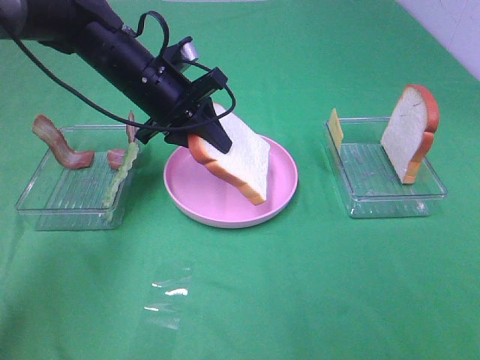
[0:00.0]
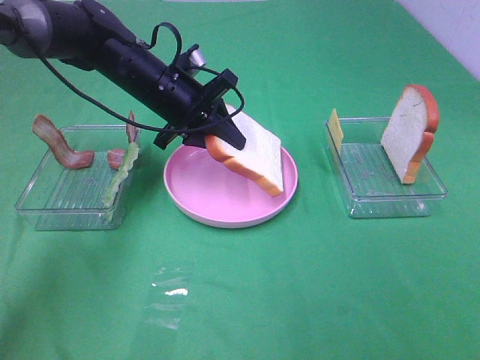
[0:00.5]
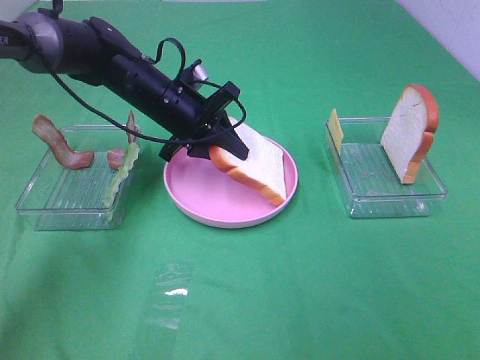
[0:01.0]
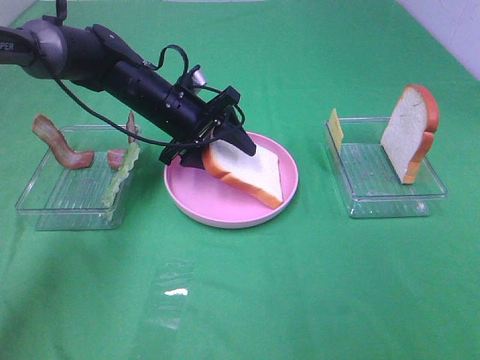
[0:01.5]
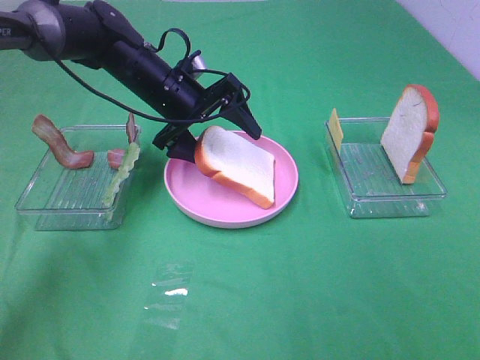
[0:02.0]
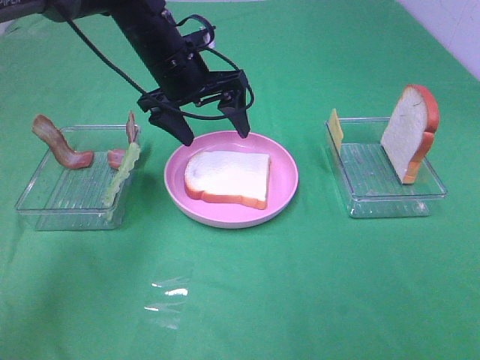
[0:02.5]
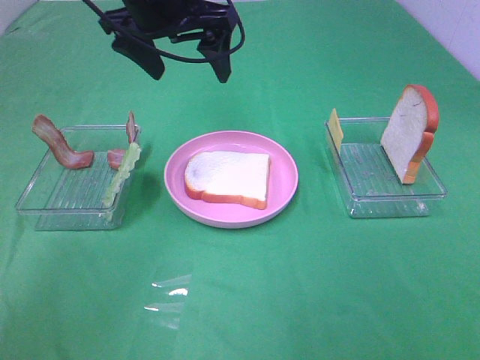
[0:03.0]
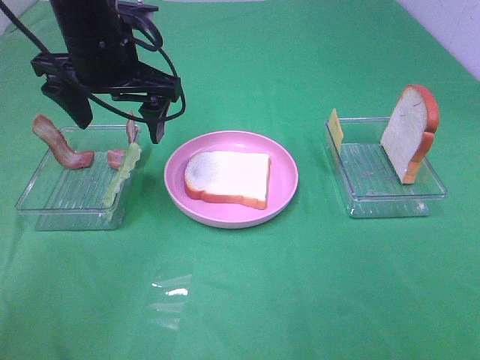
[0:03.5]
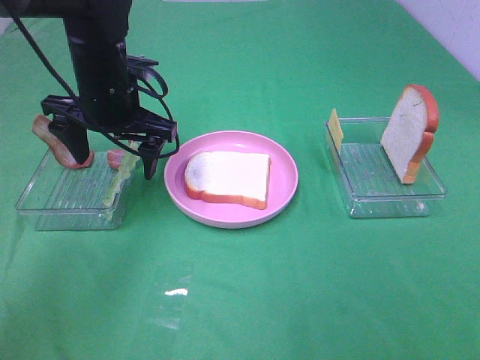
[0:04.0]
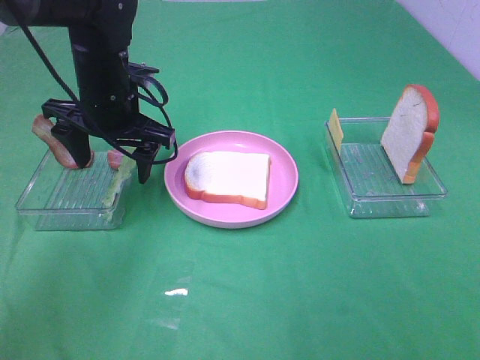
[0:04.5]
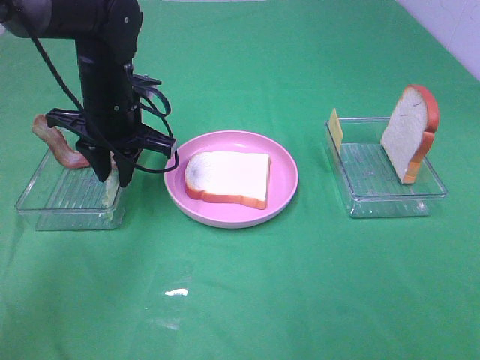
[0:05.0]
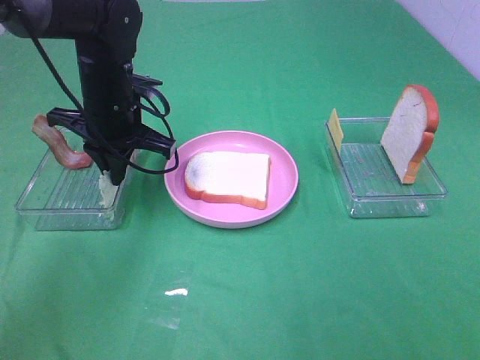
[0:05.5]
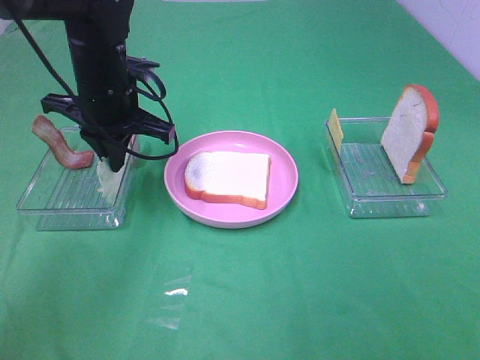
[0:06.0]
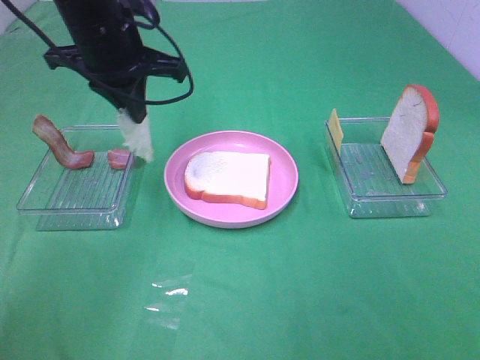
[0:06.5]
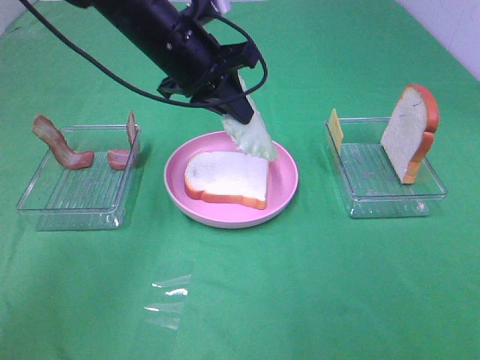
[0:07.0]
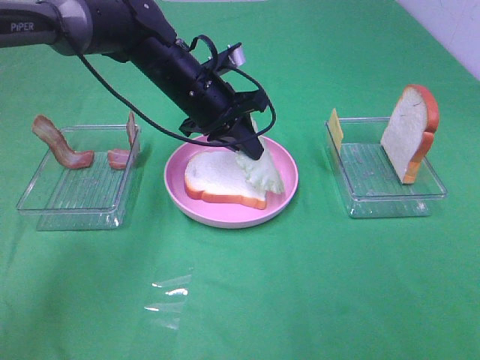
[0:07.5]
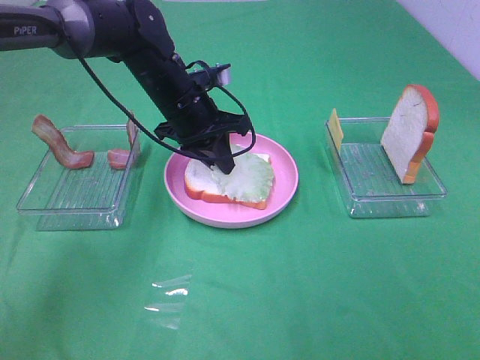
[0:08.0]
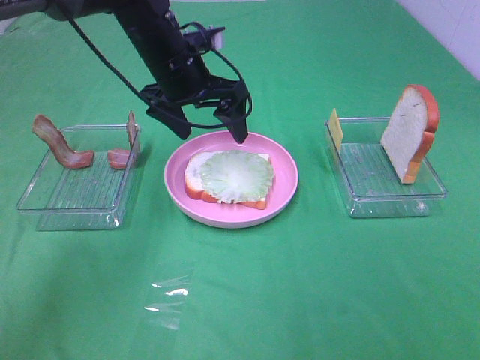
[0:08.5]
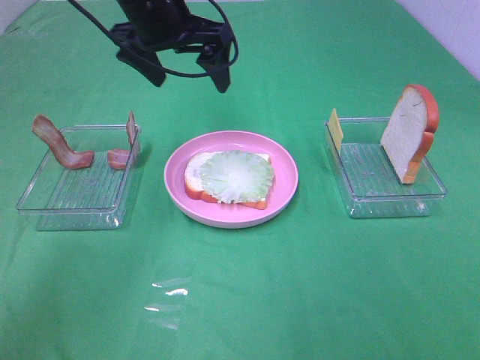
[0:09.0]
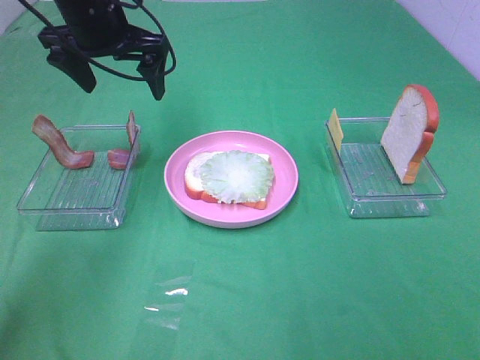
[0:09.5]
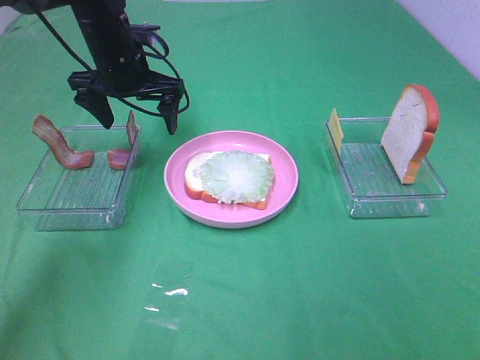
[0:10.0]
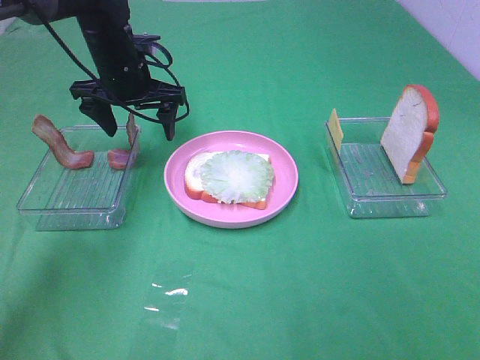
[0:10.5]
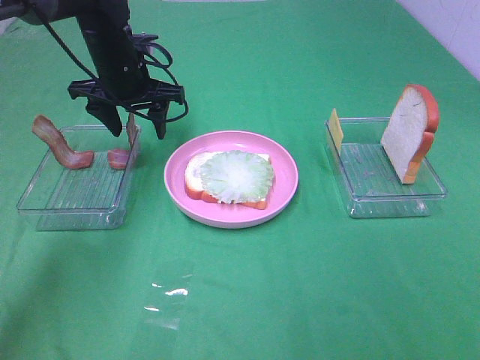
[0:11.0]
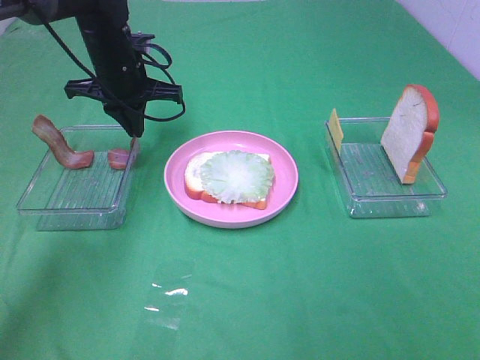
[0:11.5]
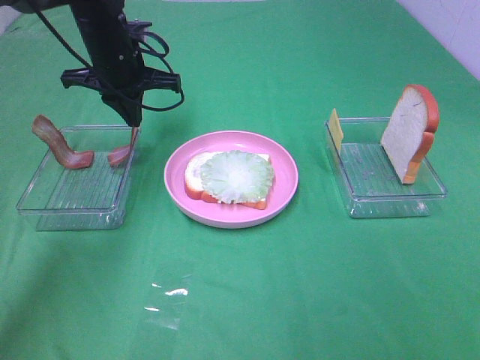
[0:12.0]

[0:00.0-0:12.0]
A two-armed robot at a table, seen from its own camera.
Task of the whole recording: Make sandwiches.
Step, 0:00.0 to 0:02.0: Left hand:place the bread slice on the plate.
Step, 0:02.5 to 0:05.5: Left hand:grab the lettuce slice.
Step, 0:06.0 to 0:08.0: Left hand:place the lettuce slice on the bread slice.
Step, 0:08.5 to 0:11.5: Left hand:grab the bacon.
0:00.0 to 0:02.0: The left gripper opens up.
0:02.0 to 0:04.0: The left gripper is displaced backward by about 5 cm, and moves some 15 cm upward and comes back.
0:04.0 to 0:06.0: The left gripper closes up.
0:06.0 to 0:08.0: The left gripper heads to the right, covering about 5 cm.
0:08.0 to 0:10.0: The left gripper is displaced to the left by some 10 cm, goes upward and returns, about 15 cm each way, and opens up.
0:10.0 to 0:12.0: The left gripper closes.

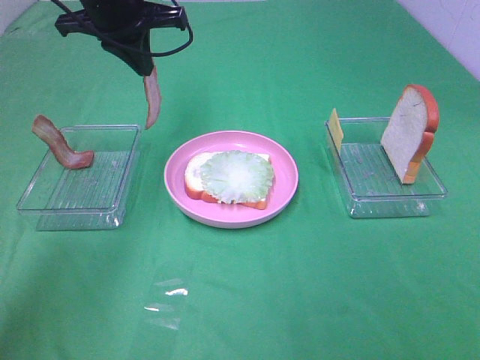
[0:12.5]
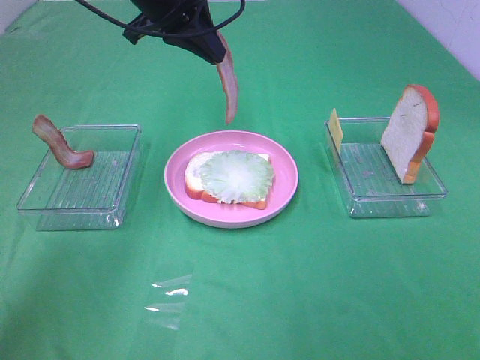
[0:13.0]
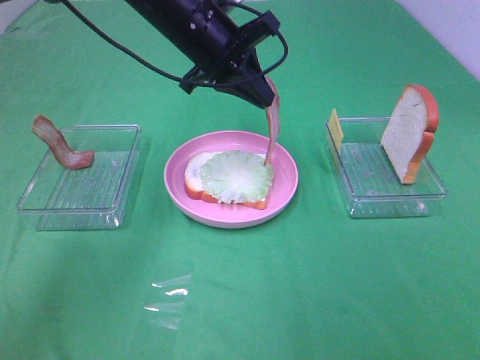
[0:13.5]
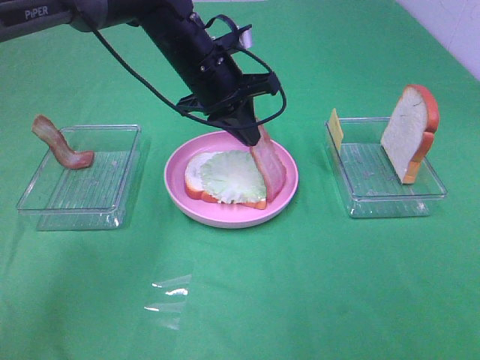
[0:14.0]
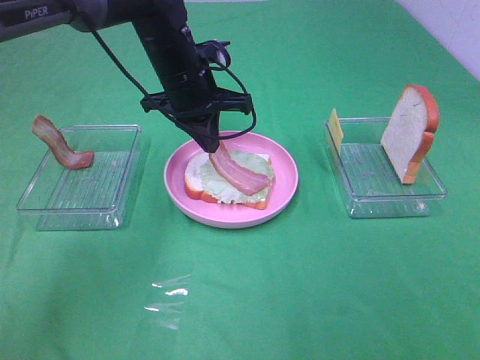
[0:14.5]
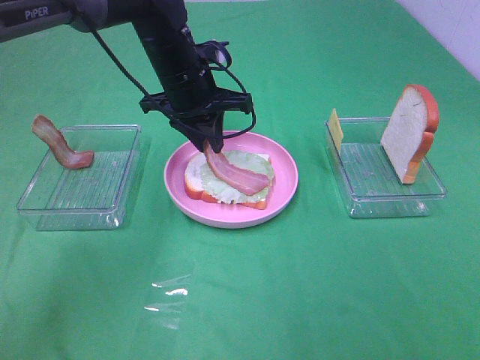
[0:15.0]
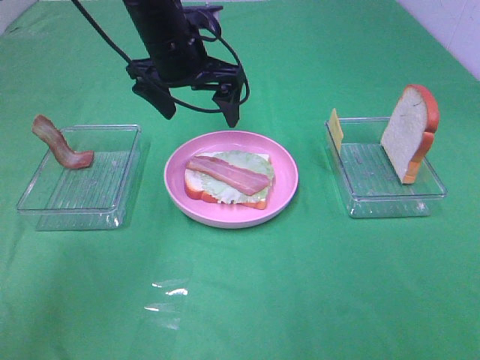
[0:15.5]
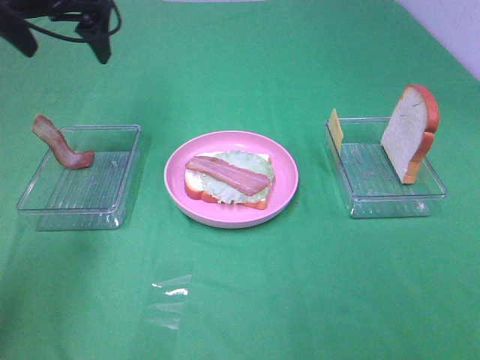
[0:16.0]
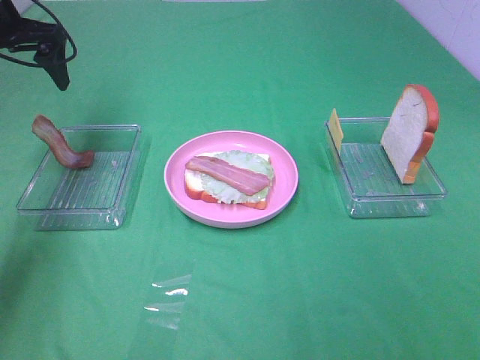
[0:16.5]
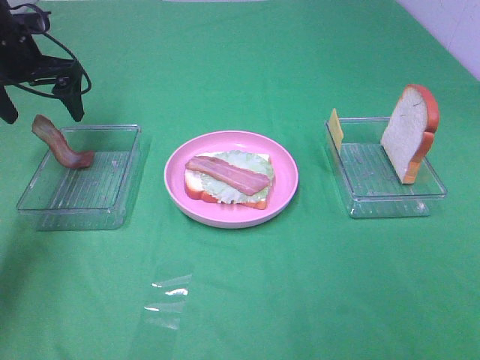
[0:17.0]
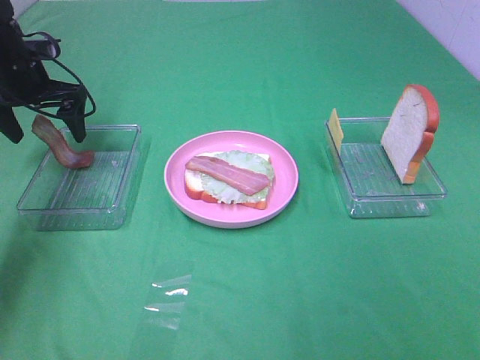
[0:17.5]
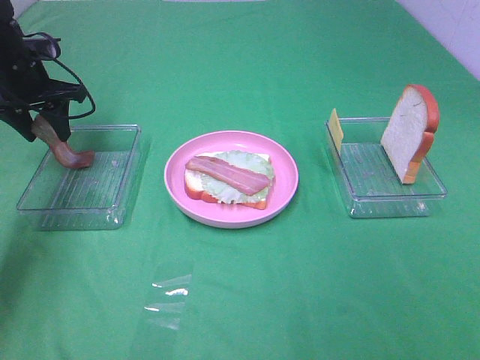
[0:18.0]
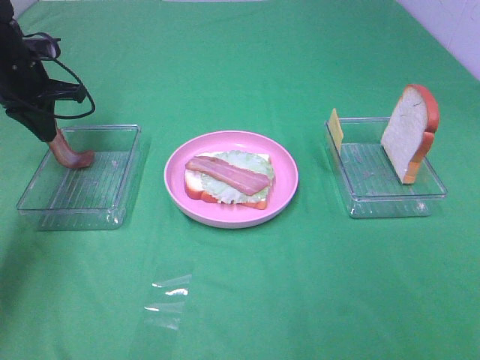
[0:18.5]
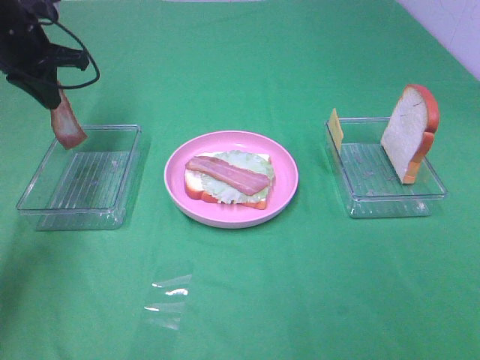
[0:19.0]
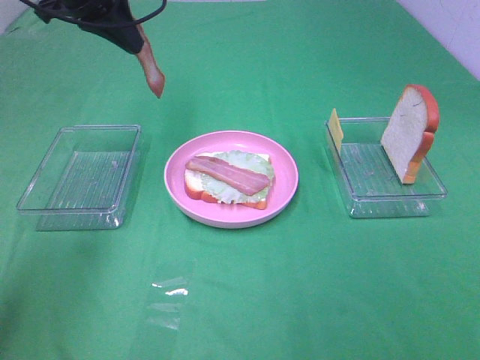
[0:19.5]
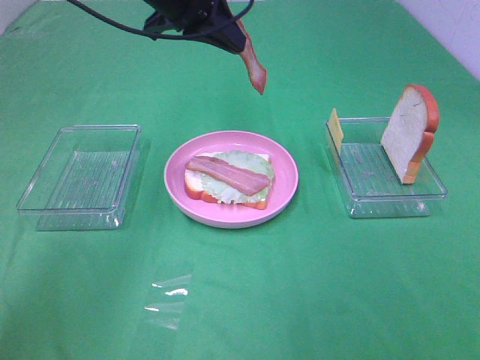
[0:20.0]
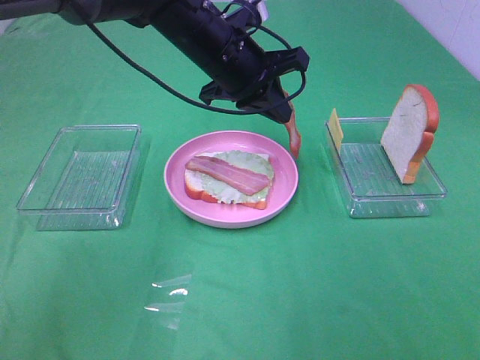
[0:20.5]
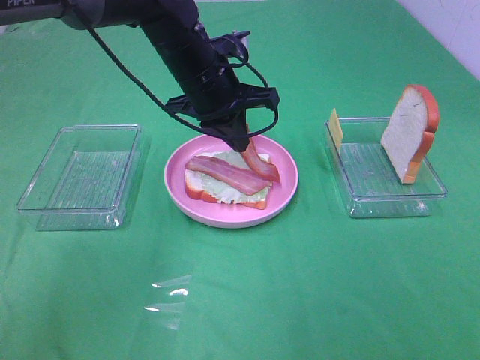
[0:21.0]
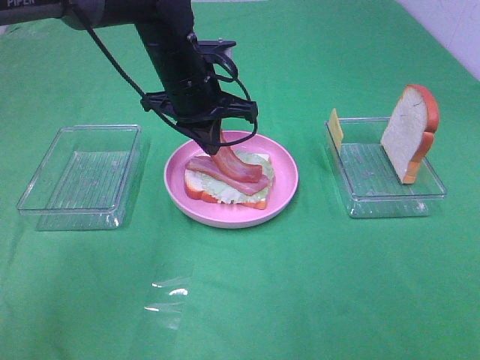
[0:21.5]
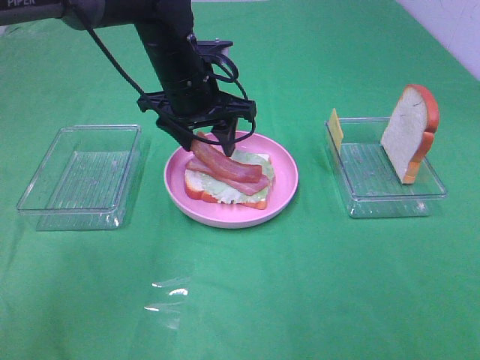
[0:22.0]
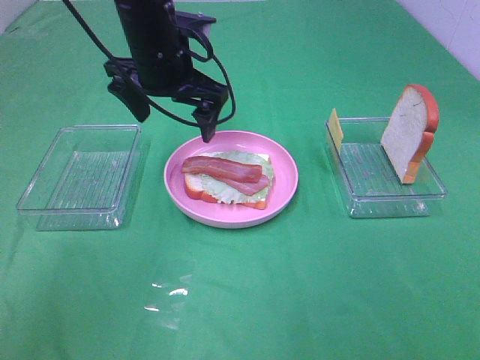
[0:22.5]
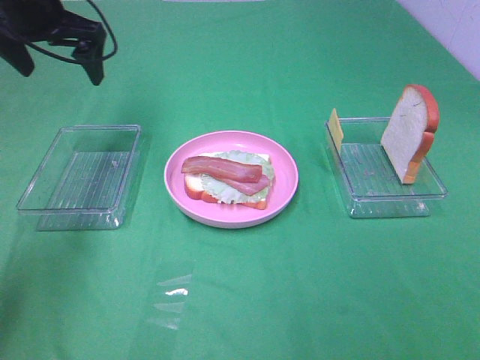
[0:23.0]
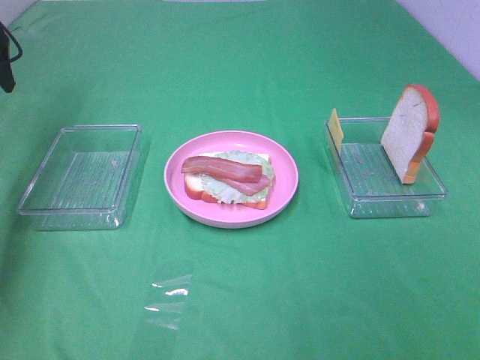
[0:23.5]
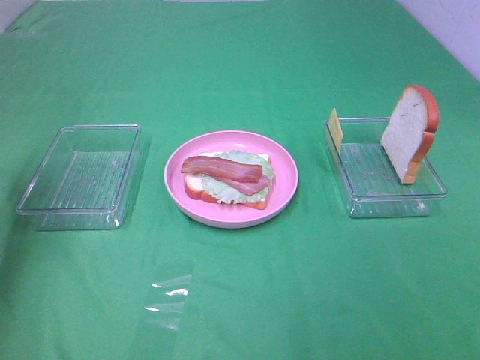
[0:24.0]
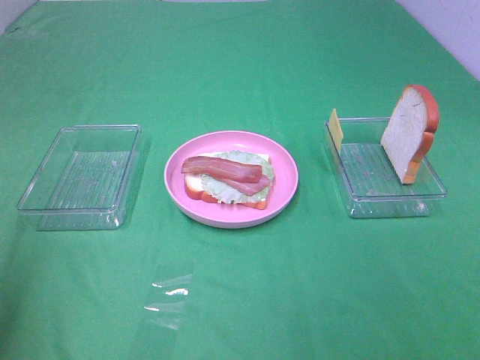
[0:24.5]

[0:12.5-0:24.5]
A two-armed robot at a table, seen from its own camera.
Task of the whole recording: Make sandwiches.
Step, 0:12.5 to 0:15.0: Left hand:place bacon on lettuce slice.
Step, 0:15.5 to 0:18.5: Left hand:grab the bacon.
Step, 0:19.0 to 0:22.0: Left hand:place bacon on bacon.
0:12.5 to 0:14.5: The left gripper shifts some 10 cm downward and to the right.
0:14.5 to 0:16.5: The left gripper moves to the left, approximately 25 cm, and opens its fingers.
0:16.5 to 0:18.5: The left gripper shifts some 10 cm downward, and closes up.
0:18.5 to 0:20.5: The left gripper travels to the right by about 30 cm.
0:20.5 to 0:22.5: The left gripper travels to the left by about 5 cm, and opens.
0:22.5 to 0:24.5: The left gripper heads backward and to the left, covering about 35 cm.

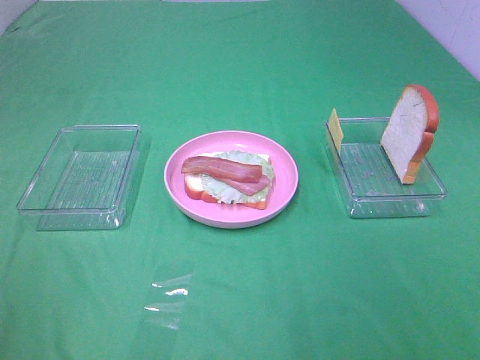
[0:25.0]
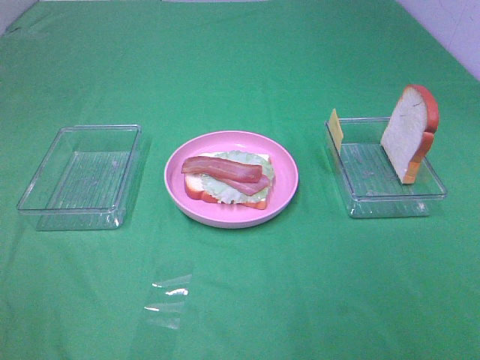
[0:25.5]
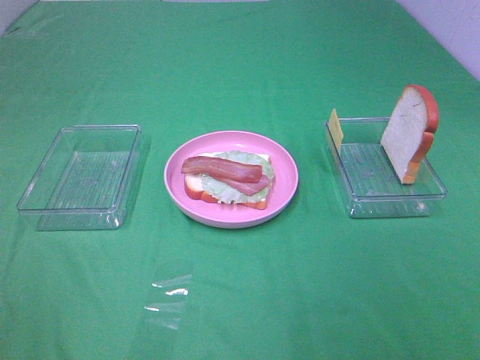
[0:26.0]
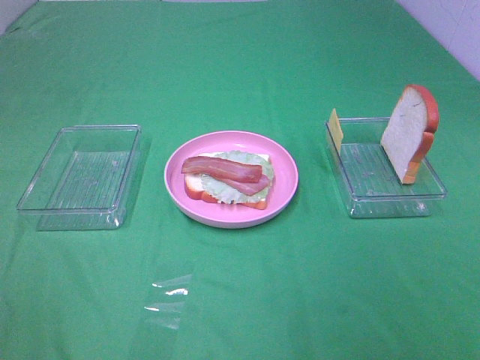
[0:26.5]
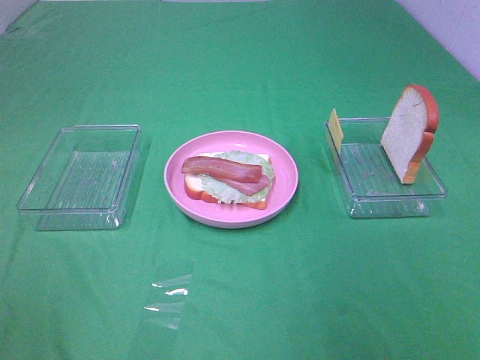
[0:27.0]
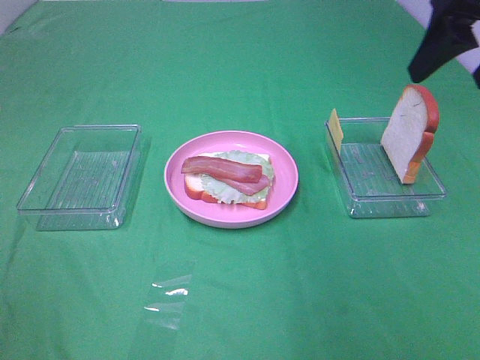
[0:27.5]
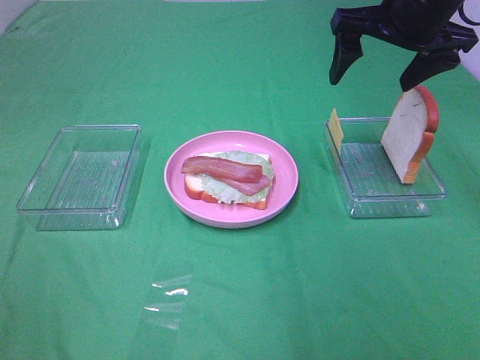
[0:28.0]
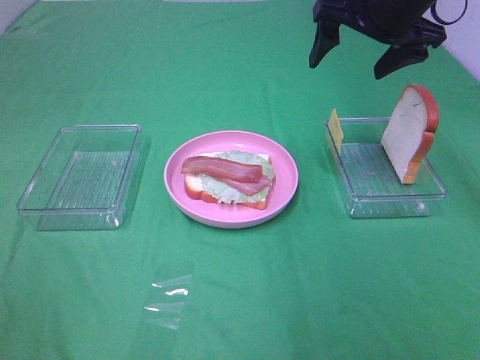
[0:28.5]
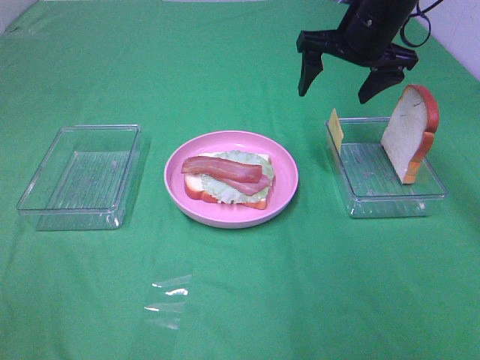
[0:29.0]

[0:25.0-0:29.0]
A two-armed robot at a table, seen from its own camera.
Task of the whole recording: Make sandwiches.
0:27.0 to 0:29.0: The right gripper goes about 30 cm forward.
